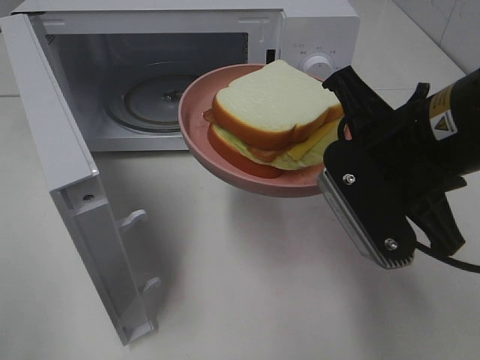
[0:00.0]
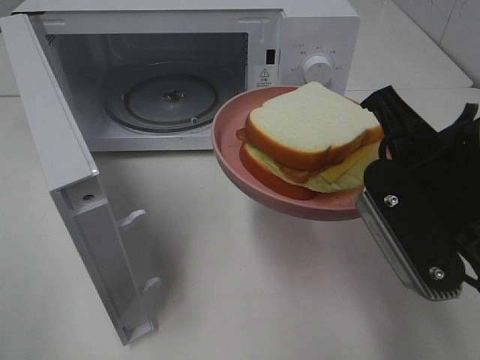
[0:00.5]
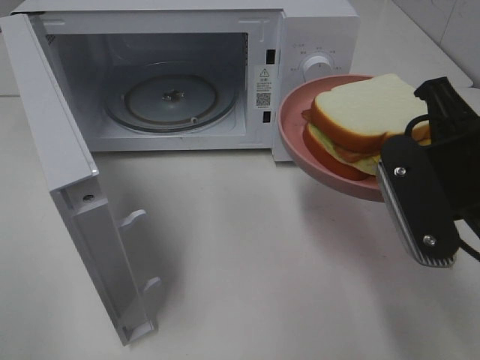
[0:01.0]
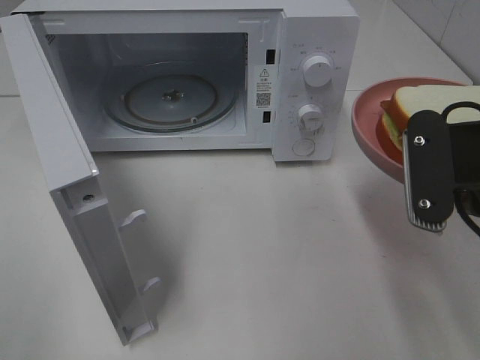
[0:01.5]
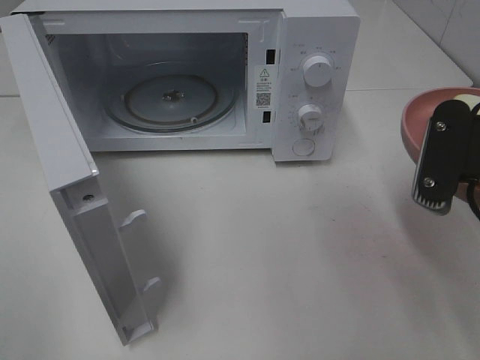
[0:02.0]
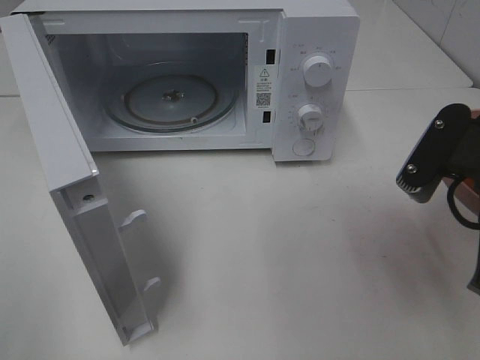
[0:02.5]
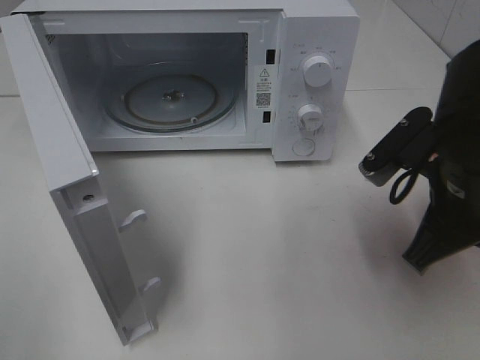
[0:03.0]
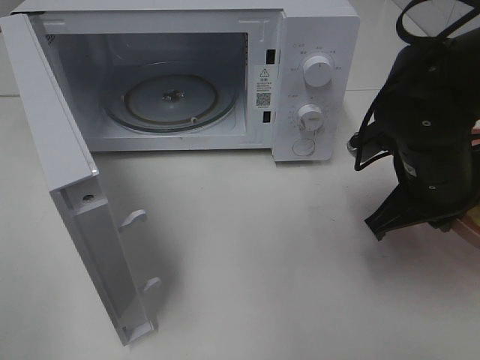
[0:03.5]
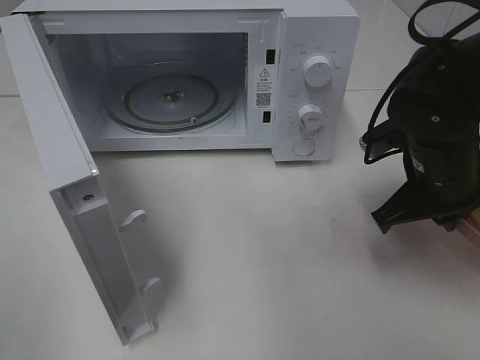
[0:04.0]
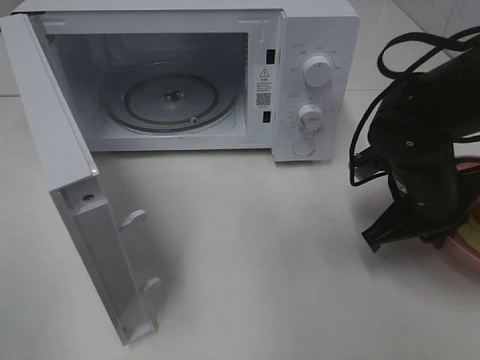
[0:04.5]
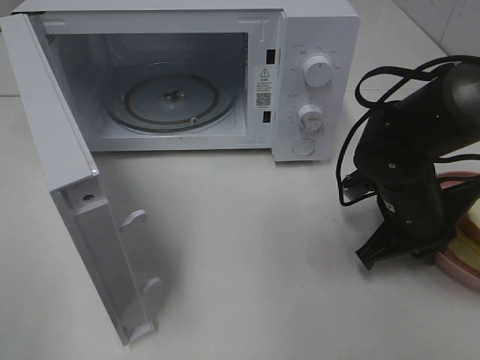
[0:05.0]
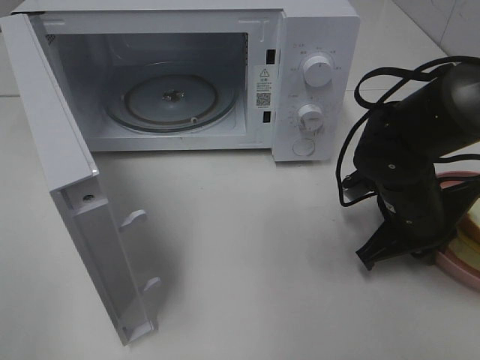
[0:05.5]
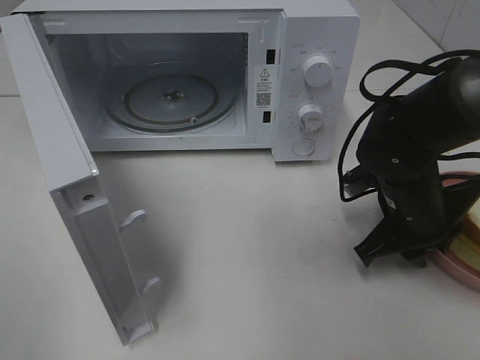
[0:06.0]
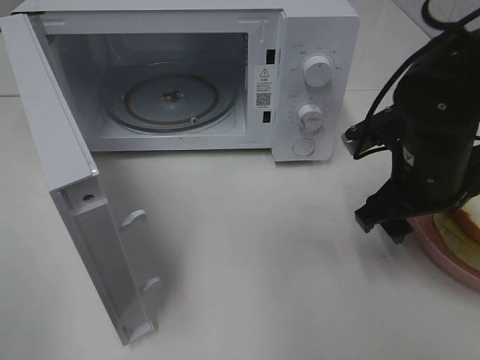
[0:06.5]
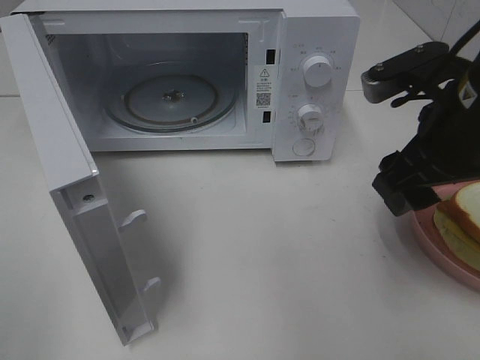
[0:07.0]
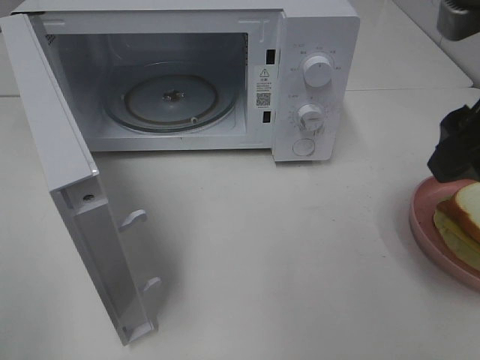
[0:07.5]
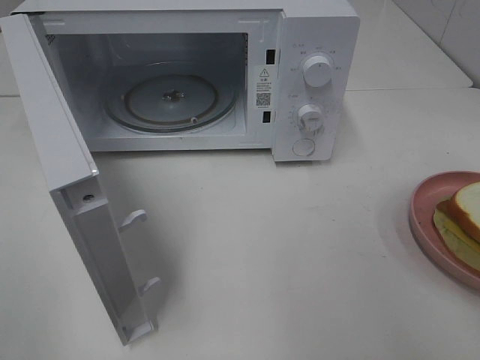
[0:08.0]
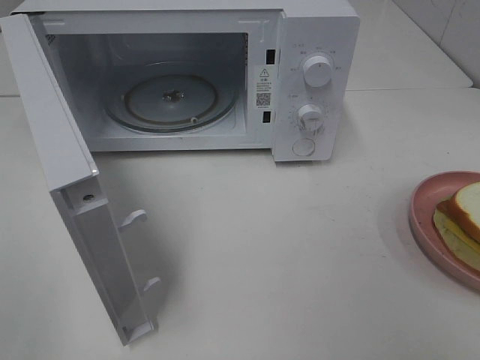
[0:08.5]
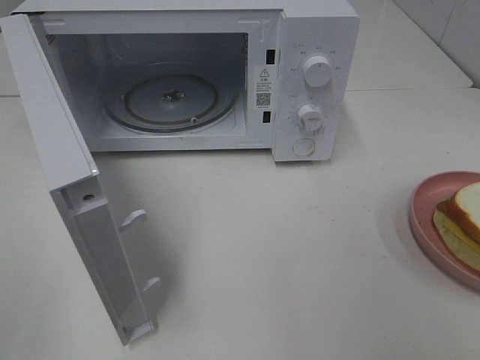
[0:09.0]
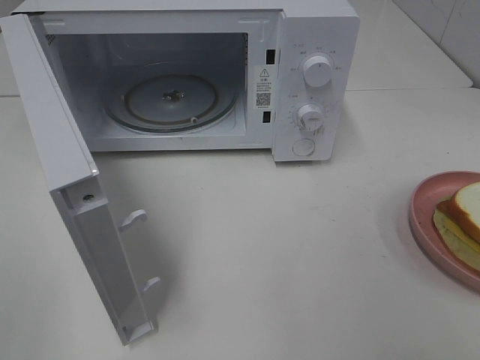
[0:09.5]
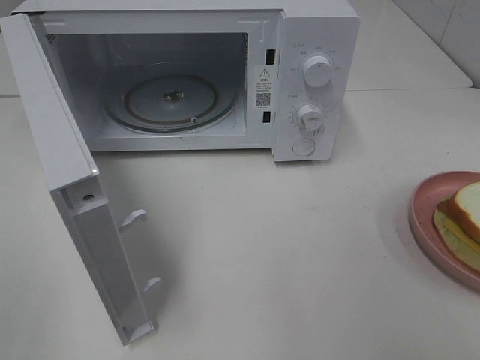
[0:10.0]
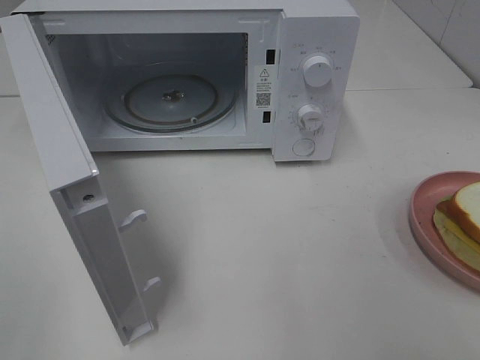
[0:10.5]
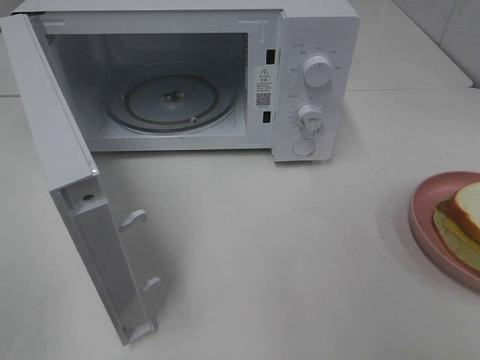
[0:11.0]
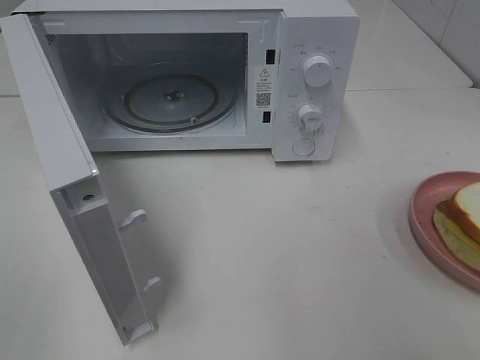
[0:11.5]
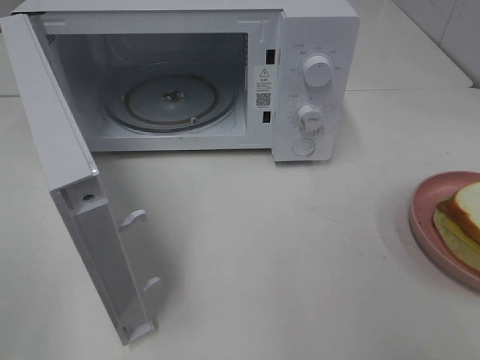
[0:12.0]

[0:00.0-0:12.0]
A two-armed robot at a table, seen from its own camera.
Task of the whole recording: Heat Sandwich.
Step, 0:00.0 to 0:07.5: Right hand: place the plate on the table.
0:00.0 to 0:02.0: The right gripper shifts some 5 cm to the right.
0:02.0 to 0:04.0: The right gripper is displaced forward and downward by roughly 15 cm.
0:04.0 to 0:06.0: The right gripper heads downward, covering some 5 cm.
0:06.0 to 0:08.0: The right gripper travels upward and backward by approximately 30 cm, and opens its fingers.

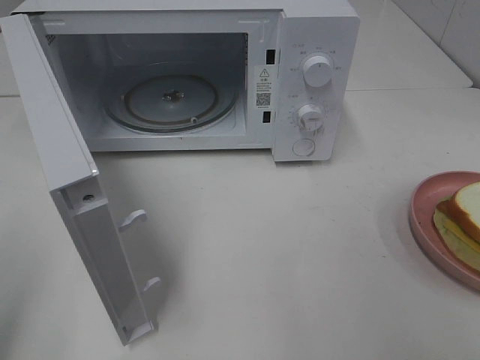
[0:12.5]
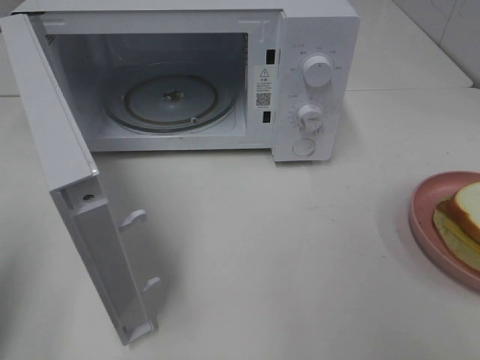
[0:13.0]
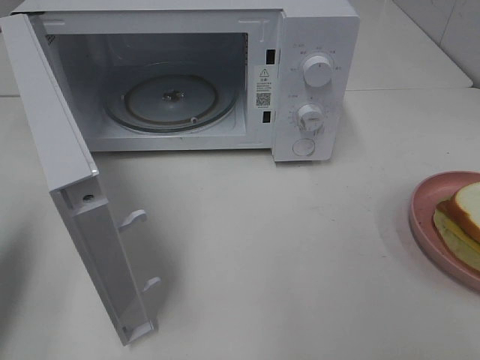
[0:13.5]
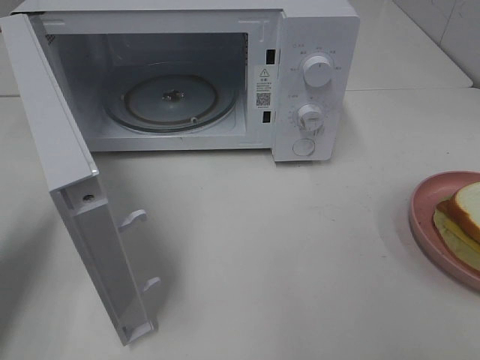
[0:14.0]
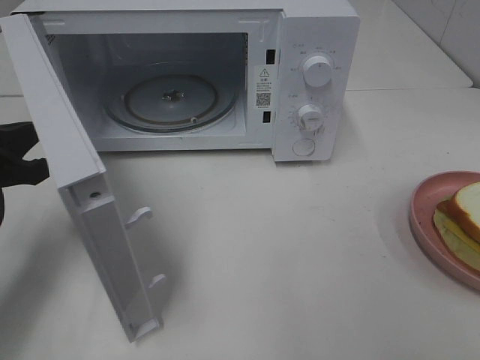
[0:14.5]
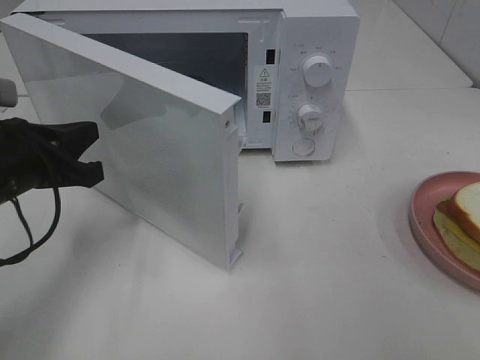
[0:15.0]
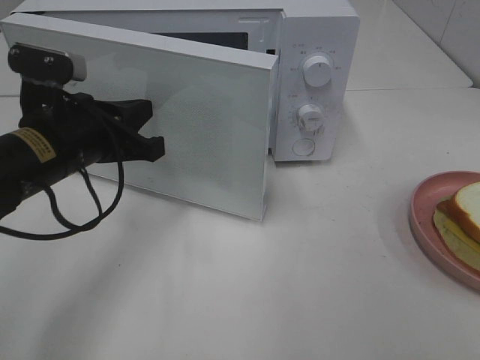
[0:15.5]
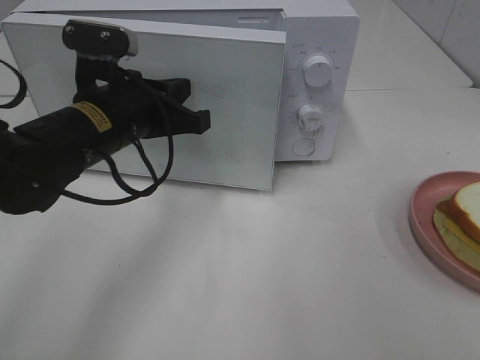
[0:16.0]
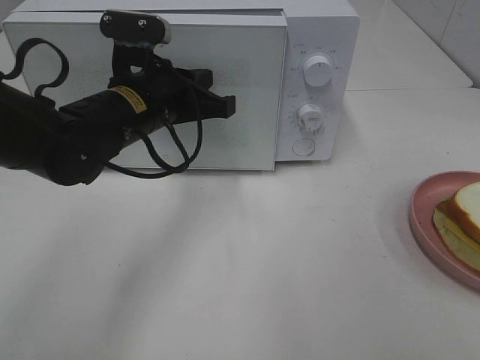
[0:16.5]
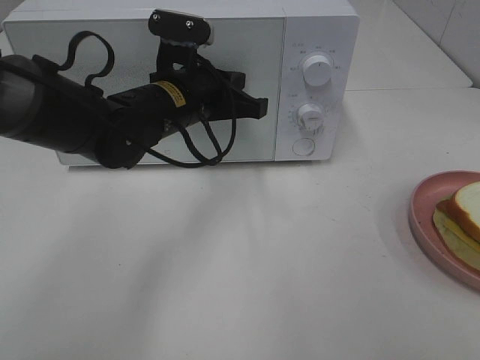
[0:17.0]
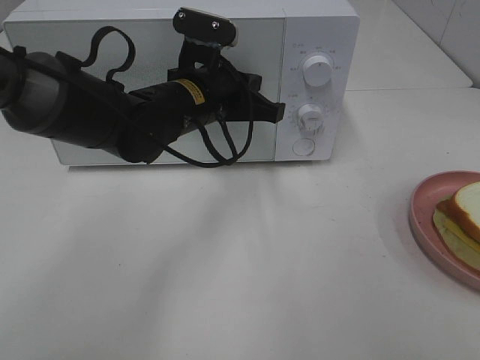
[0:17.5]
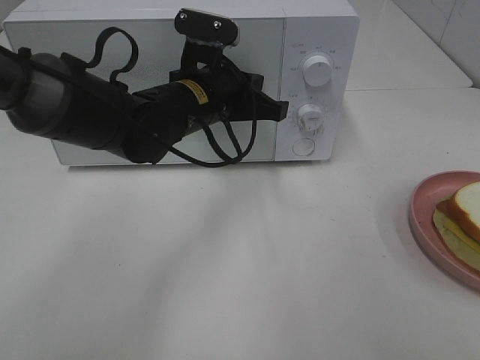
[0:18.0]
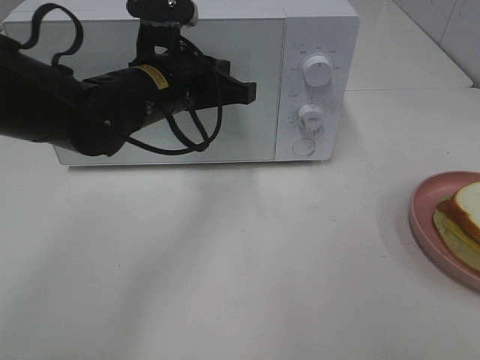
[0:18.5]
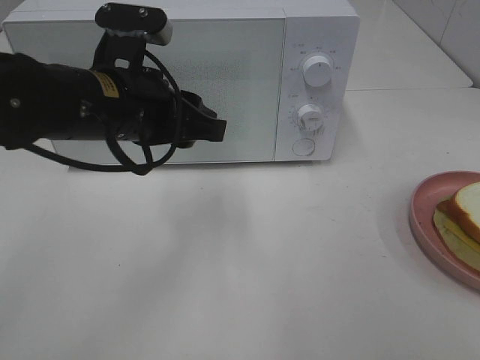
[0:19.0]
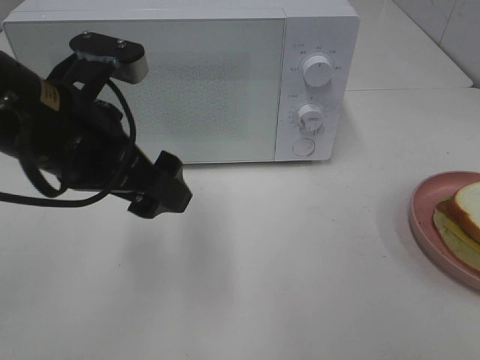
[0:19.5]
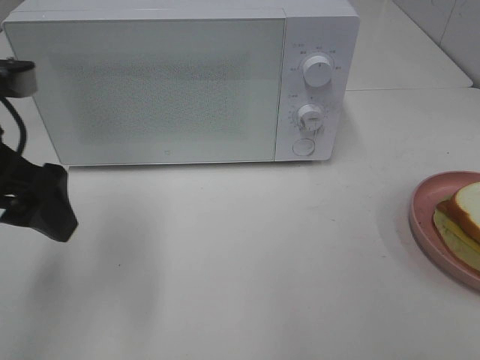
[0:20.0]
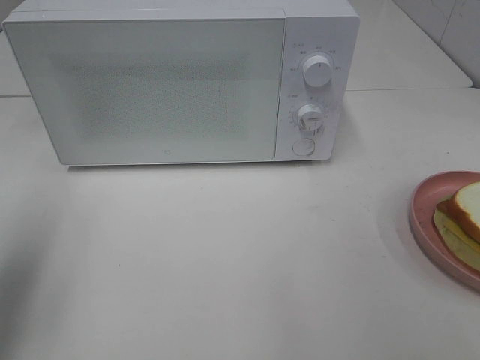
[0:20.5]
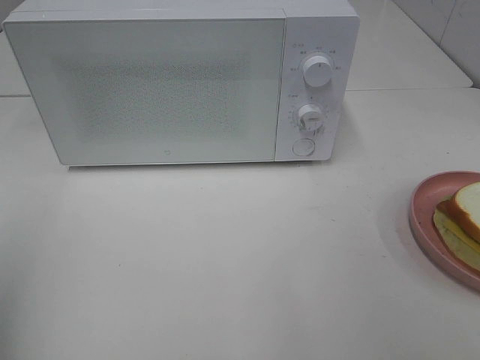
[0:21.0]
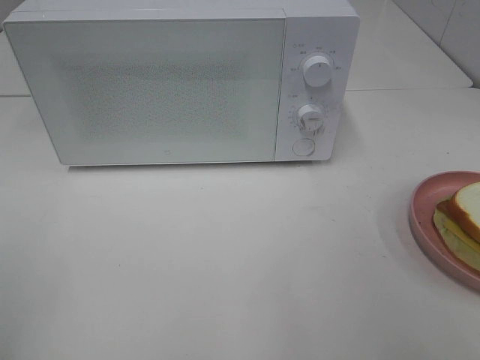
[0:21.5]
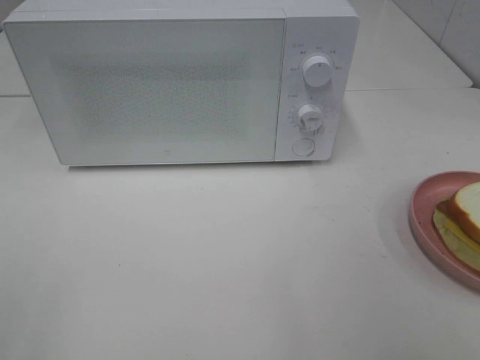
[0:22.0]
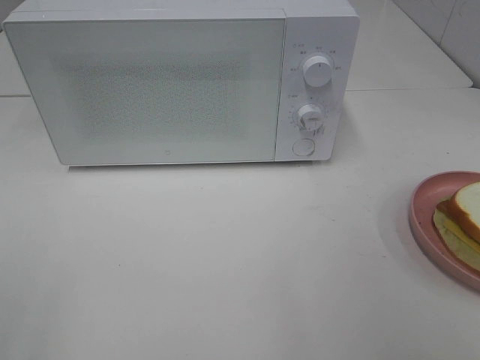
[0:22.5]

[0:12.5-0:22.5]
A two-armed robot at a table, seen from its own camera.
Task of the whole recording: Heat Sandwich.
Step, 0:12.5 to 0:18.5: Left hand: close the microwave door.
0:12.5 to 0:14.5: The left gripper is displaced forward and downward by some 25 cm.
0:14.5 to 0:16.5: The left gripper is displaced to the right and forward by approximately 20 cm.
0:16.5 to 0:18.5: There are only small adjustments of the grippers.
0:18.5 to 0:20.5: The left gripper heads to the left and backward, covering about 30 cm, and opens up.
0:20.5 to 0:22.5: The left gripper heads backward, covering approximately 20 cm.
